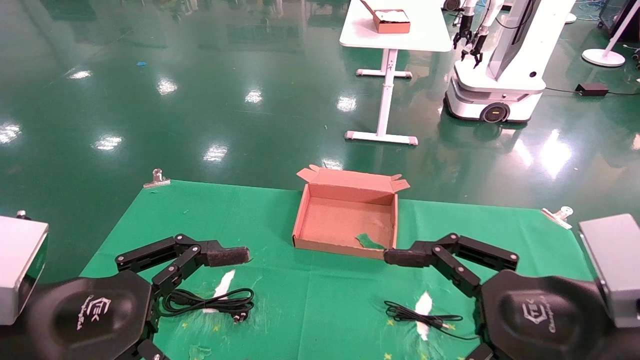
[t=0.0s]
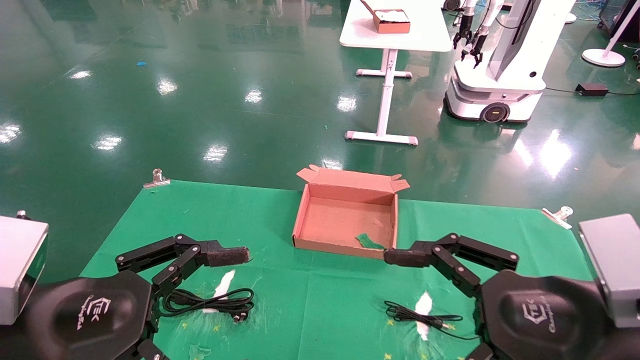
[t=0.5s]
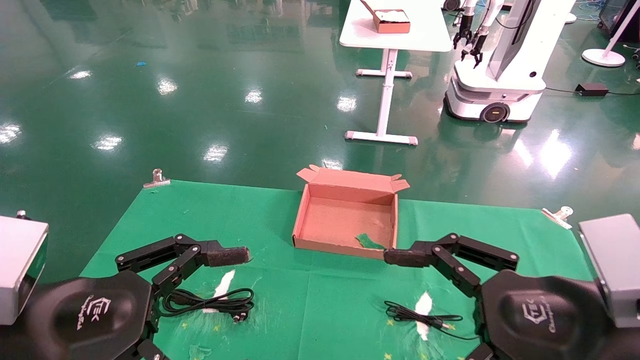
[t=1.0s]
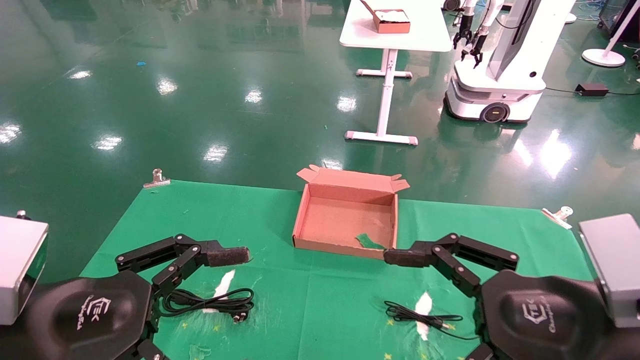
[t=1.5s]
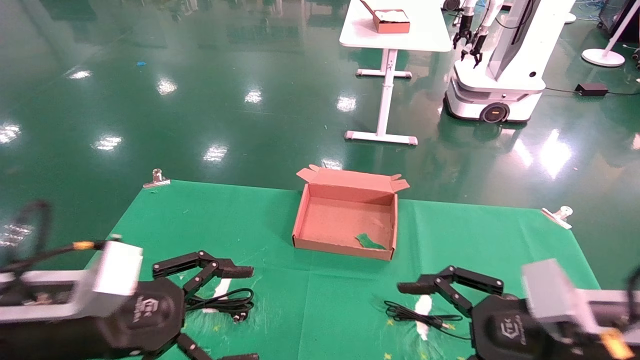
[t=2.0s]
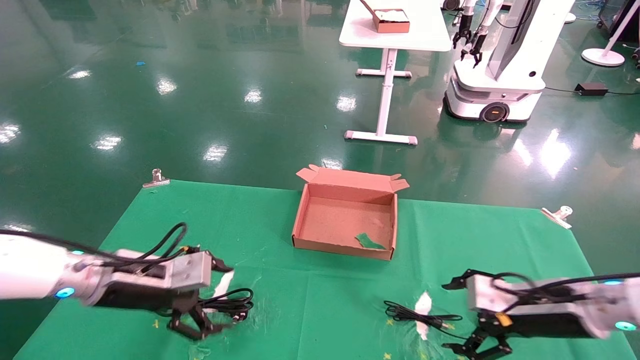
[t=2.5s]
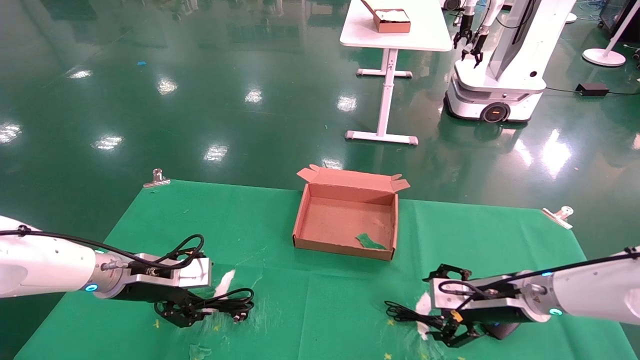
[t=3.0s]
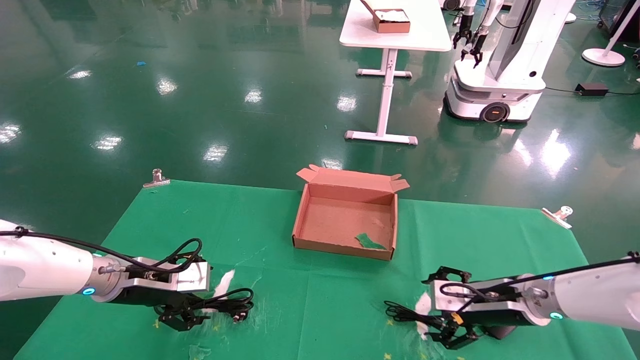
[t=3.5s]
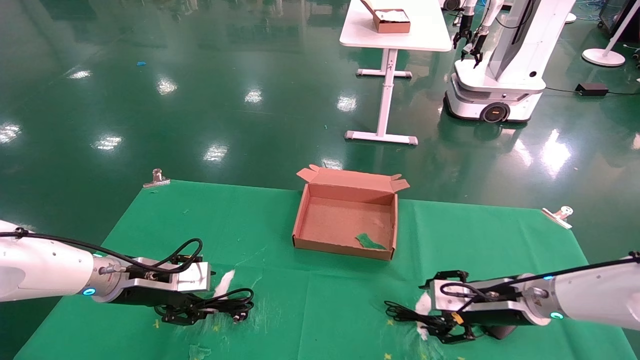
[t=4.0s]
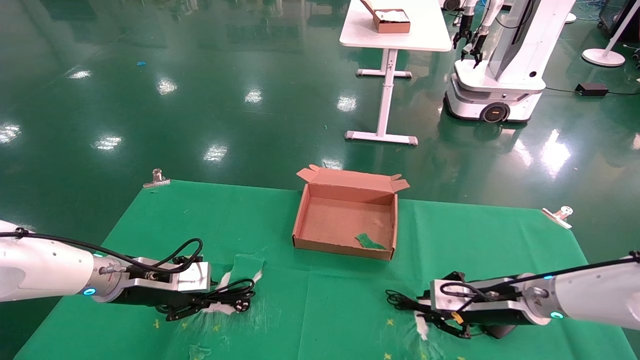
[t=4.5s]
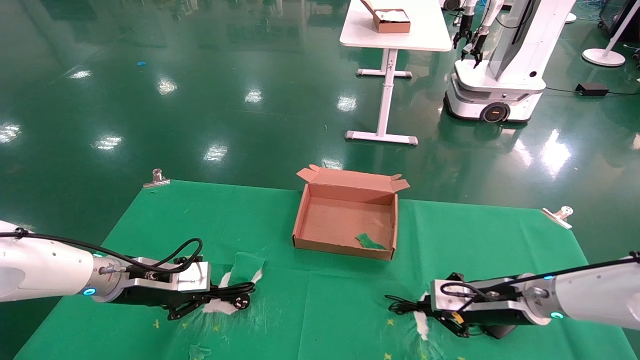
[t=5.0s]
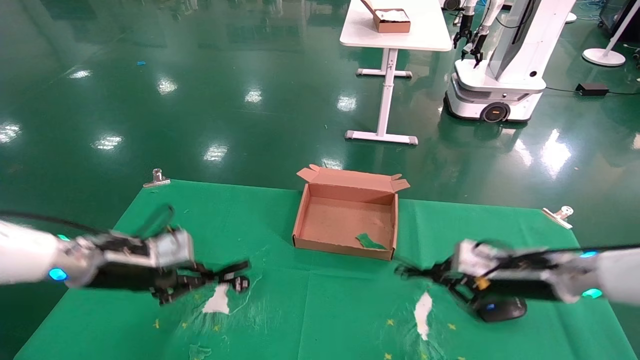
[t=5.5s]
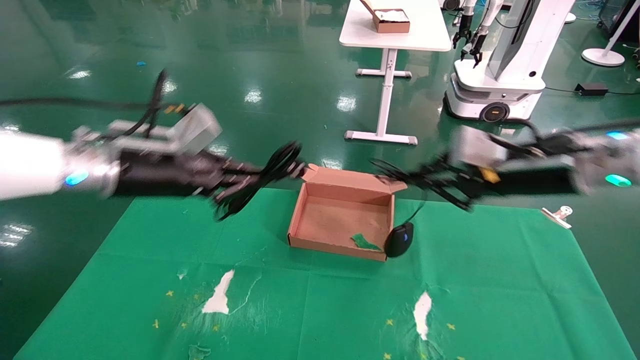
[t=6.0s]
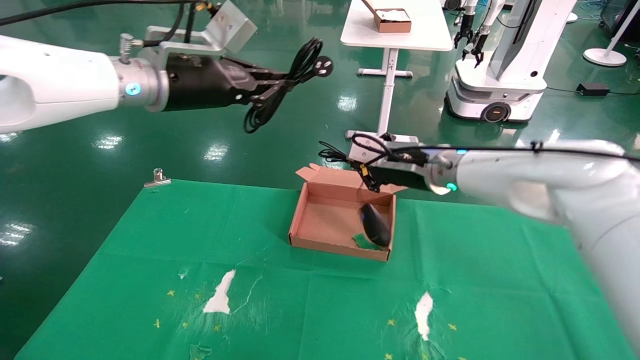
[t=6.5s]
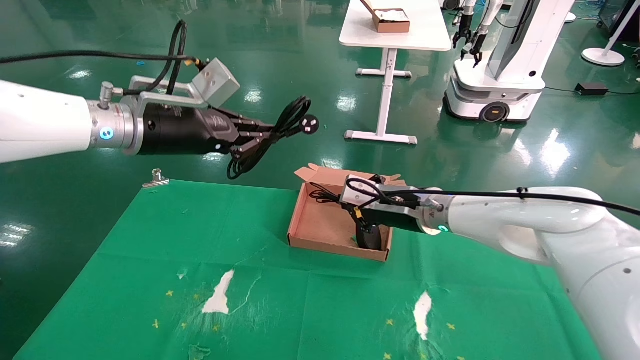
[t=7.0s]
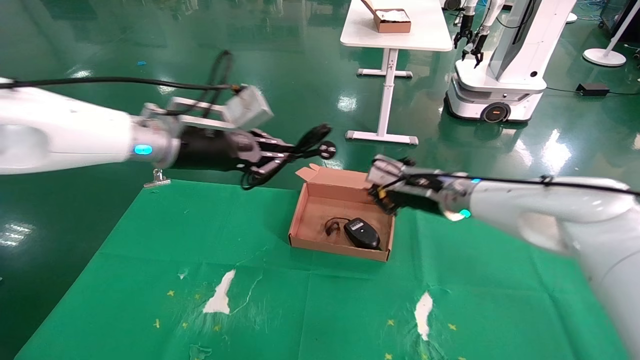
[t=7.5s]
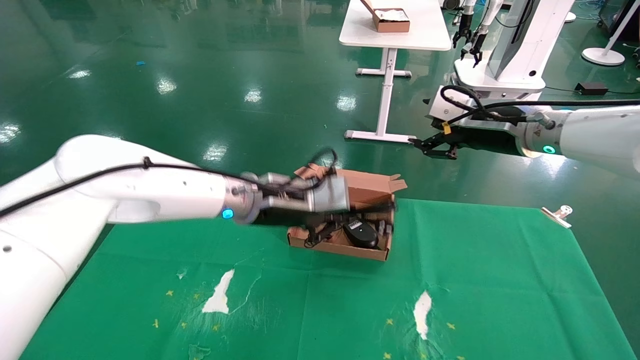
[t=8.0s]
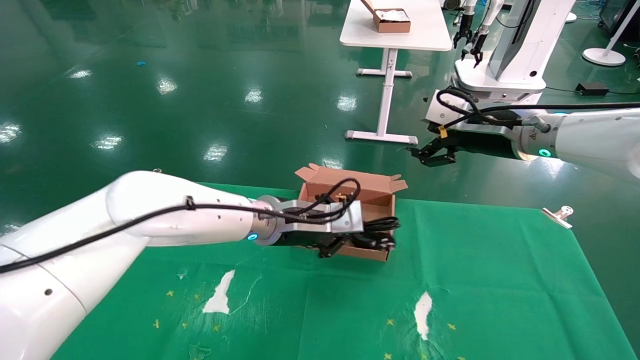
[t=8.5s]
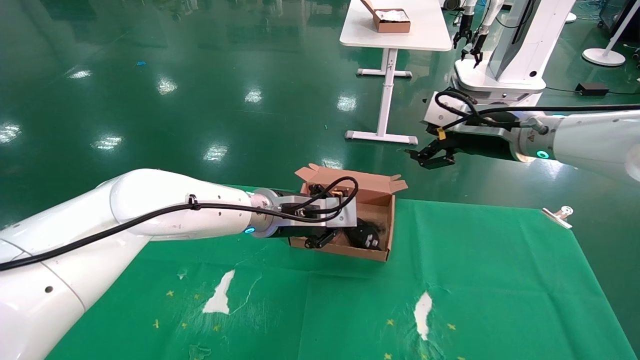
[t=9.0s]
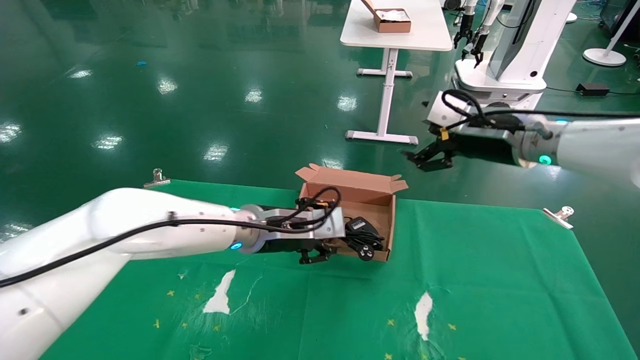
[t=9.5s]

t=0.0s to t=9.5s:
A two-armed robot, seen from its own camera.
Step, t=2.0s to t=4.5s: Grab and lift both the mouse and power cord from the accessory packaging area at the same time.
Step, t=5.0s to t=9.0s: Place the mouse and power cord into the box.
t=0.0s to t=2.0s: Both grippers move forward, some 5 cm.
t=2.0s to t=4.0s: The right gripper heads forward and downward, covering some 20 cm; the left gripper moves forward, roughly 15 cm.
t=4.0s to t=5.5s: Both grippers travel together upward, some 5 cm. The right gripper closes up, while the left gripper closes up.
t=5.5s to t=7.5s: The left gripper travels to the right and upward by roughly 20 cm. Meanwhile the right gripper is displaced to the left, upward and forward by about 15 cm.
t=7.5s to t=9.5s: The right gripper heads upward and to the right, covering some 10 cm, and opens. Meanwhile the left gripper heads downward and to the right, covering about 15 cm.

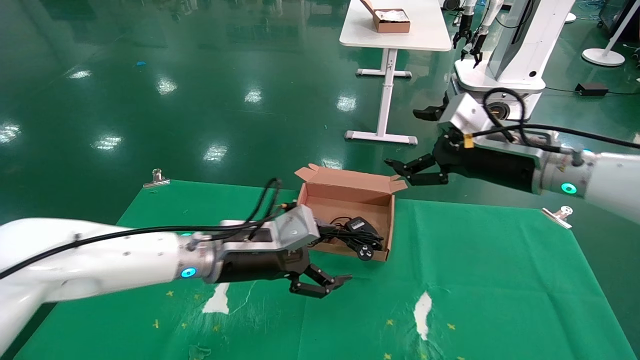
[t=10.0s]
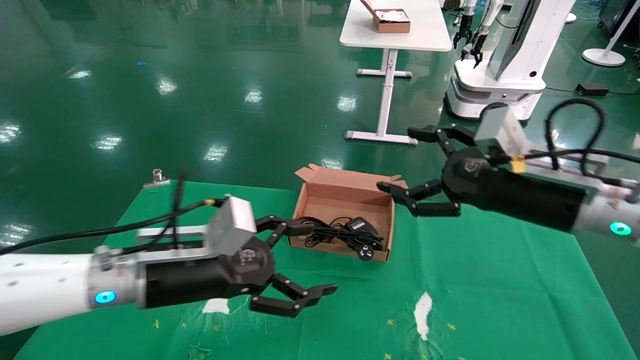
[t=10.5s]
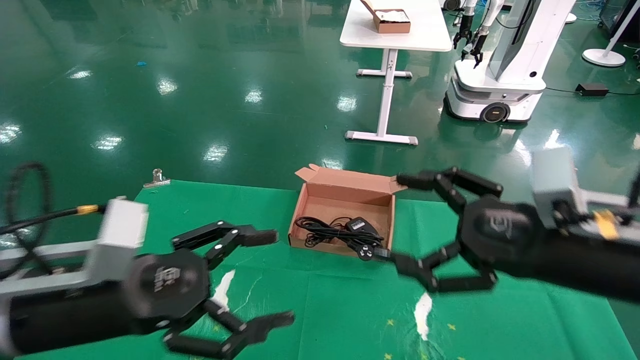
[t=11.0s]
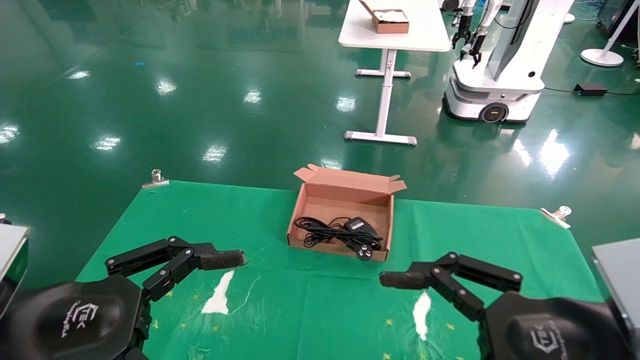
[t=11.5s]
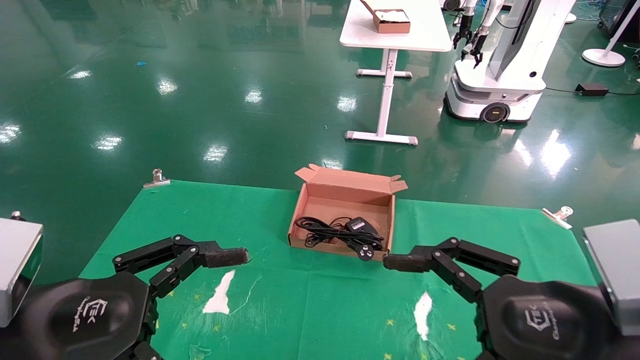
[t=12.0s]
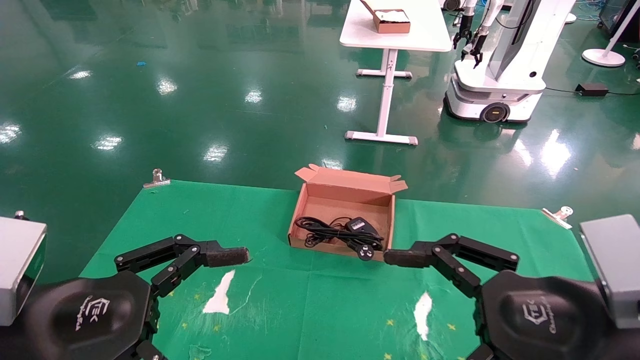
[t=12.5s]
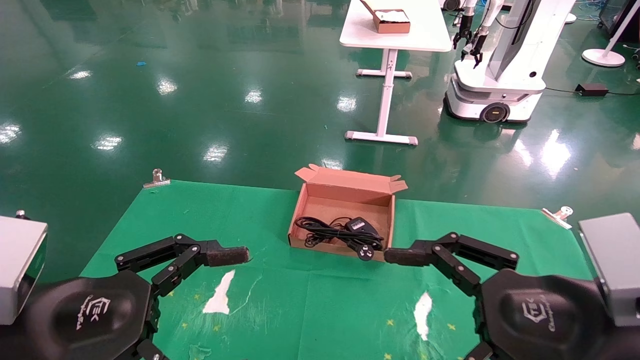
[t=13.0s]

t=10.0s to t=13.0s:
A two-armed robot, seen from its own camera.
t=10.0s to t=11.5s: The right gripper moves backward, about 20 cm, while the left gripper moves backward and to the left, some 25 cm.
t=11.5s to t=13.0s: Neither gripper changes place.
